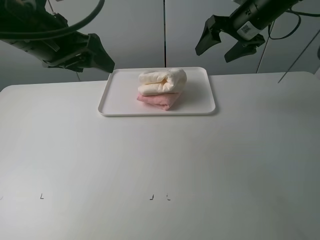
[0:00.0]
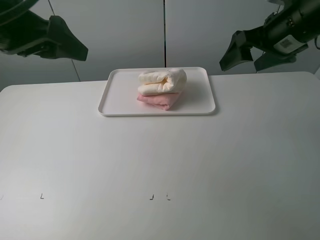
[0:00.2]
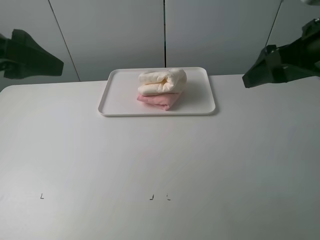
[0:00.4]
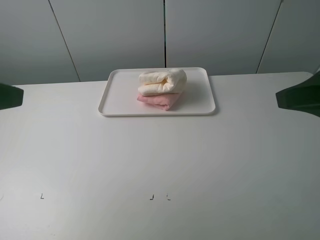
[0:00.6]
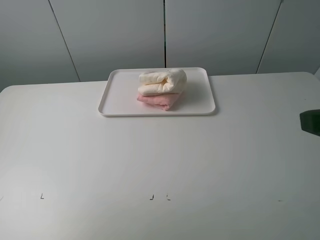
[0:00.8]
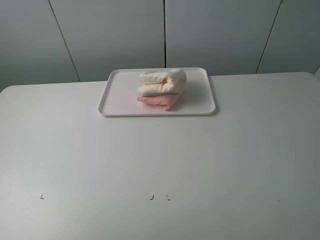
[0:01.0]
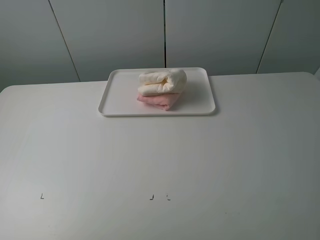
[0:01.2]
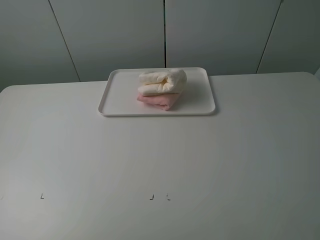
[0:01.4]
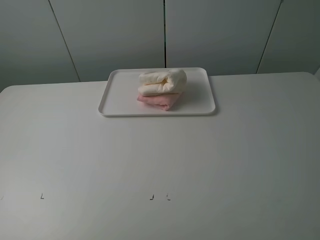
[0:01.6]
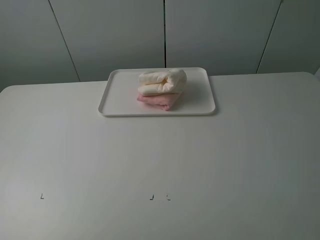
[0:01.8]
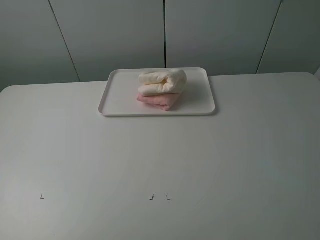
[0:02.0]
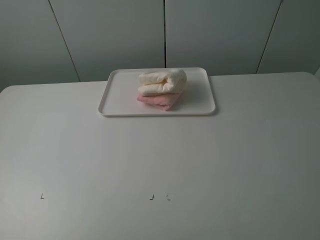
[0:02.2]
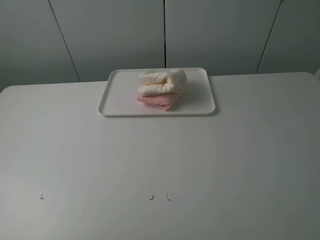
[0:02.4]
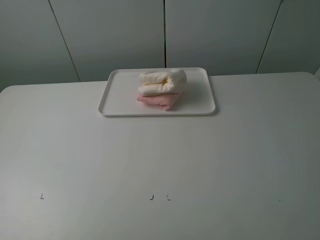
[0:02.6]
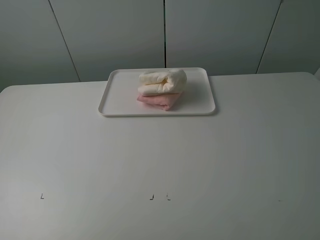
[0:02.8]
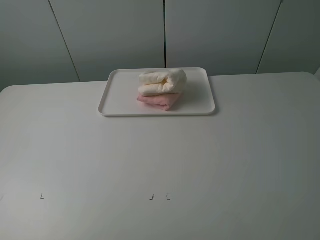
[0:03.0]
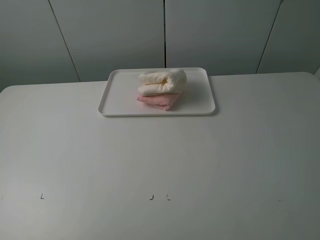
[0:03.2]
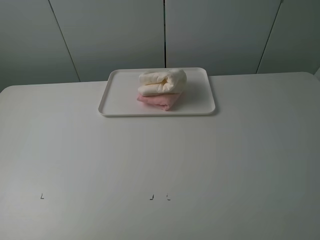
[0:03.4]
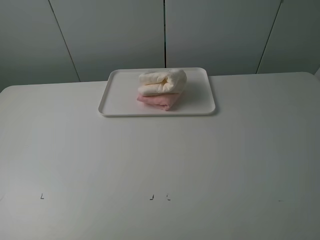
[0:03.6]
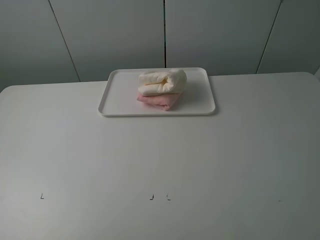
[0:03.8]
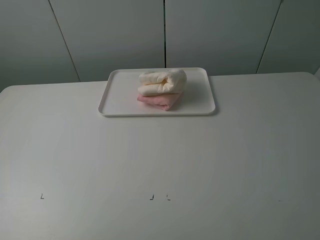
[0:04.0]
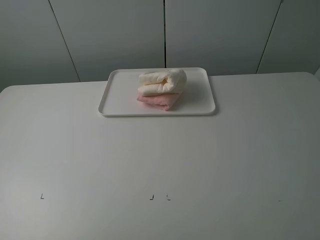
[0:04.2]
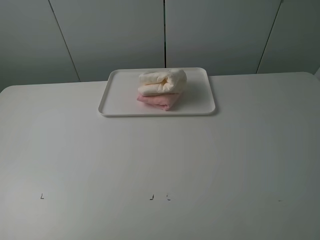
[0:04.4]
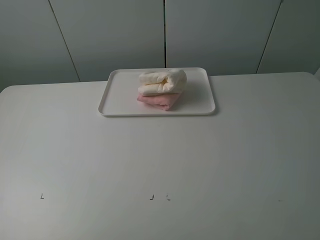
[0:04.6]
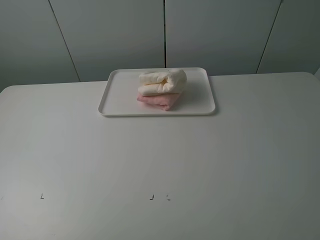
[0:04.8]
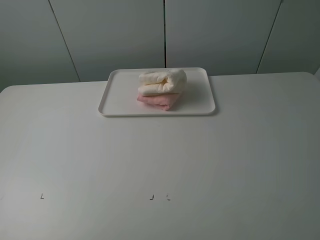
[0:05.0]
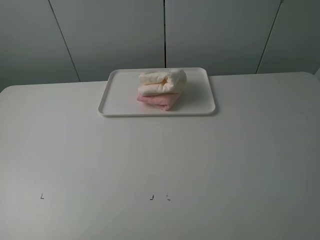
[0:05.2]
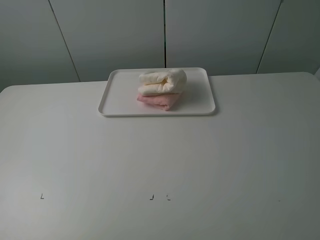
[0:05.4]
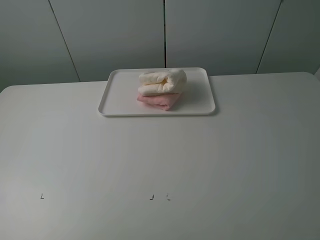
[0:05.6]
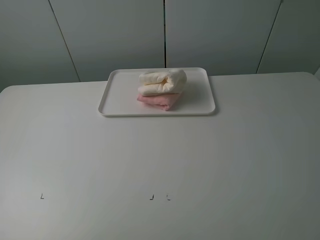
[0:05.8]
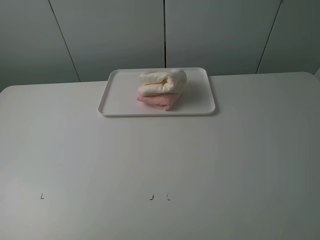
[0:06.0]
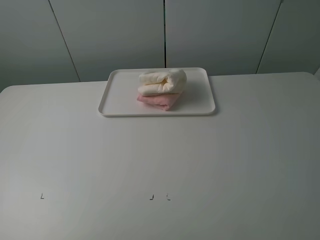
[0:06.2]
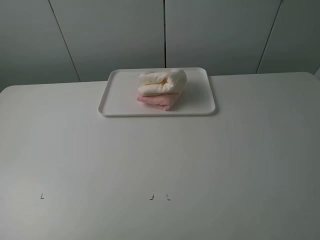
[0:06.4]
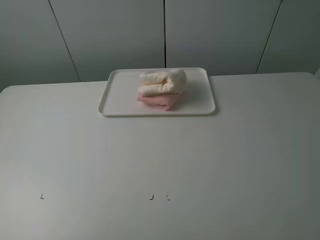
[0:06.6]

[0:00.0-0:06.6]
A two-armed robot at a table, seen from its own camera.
Task of the whole recording: fold one of the towels by two grippers and place it on the tray,then fold another towel by two grippers and place it on the folded towel.
0:00.0 to 0:01.6: The left gripper shifts approximately 30 cm backward and to the left; the right gripper is displaced backward by approximately 40 cm.
0:03.2 to 0:06.6: Both grippers stay put.
